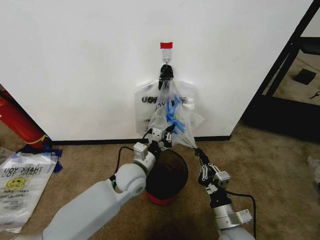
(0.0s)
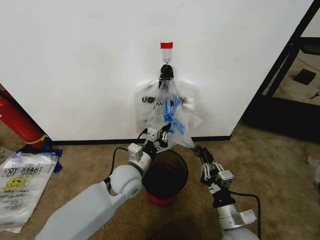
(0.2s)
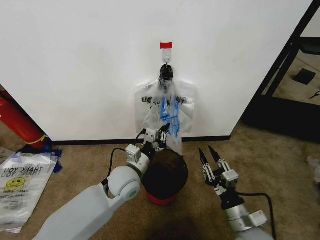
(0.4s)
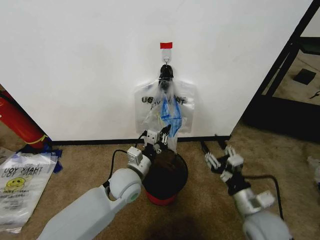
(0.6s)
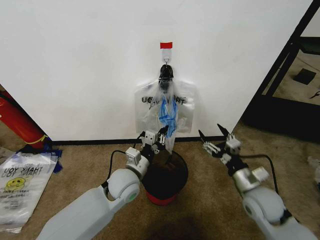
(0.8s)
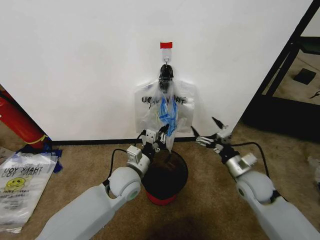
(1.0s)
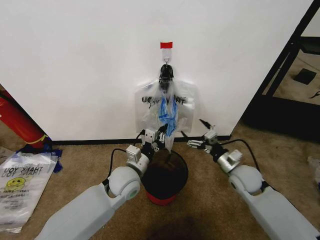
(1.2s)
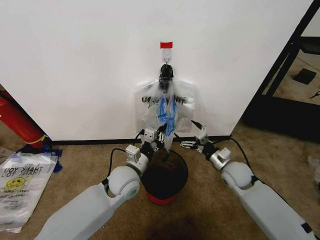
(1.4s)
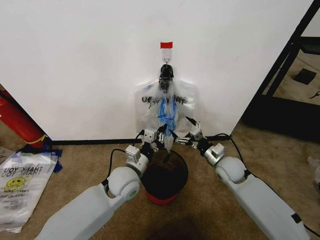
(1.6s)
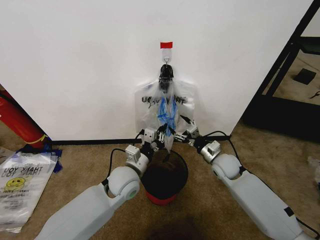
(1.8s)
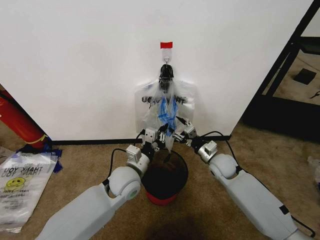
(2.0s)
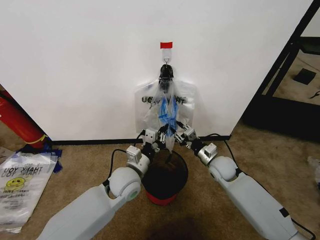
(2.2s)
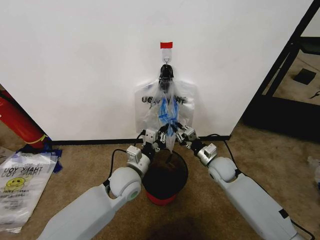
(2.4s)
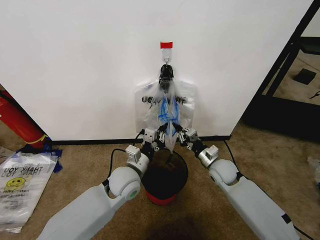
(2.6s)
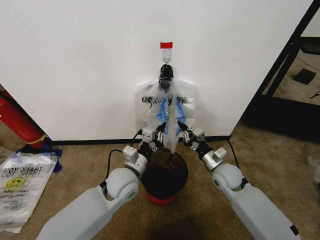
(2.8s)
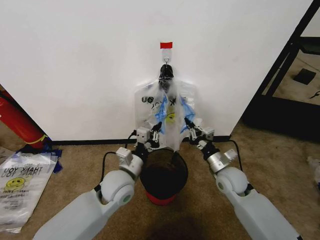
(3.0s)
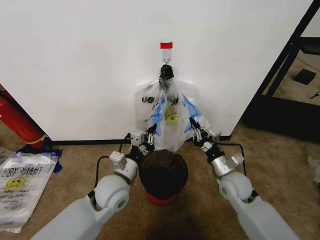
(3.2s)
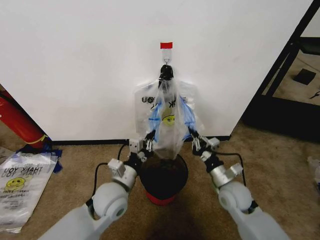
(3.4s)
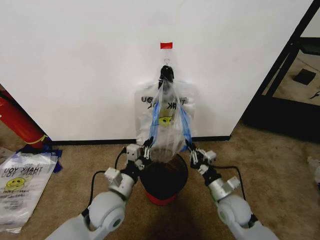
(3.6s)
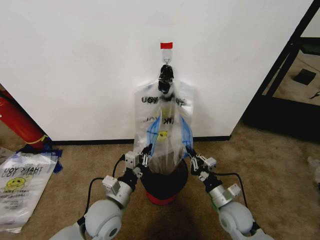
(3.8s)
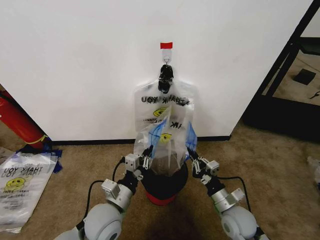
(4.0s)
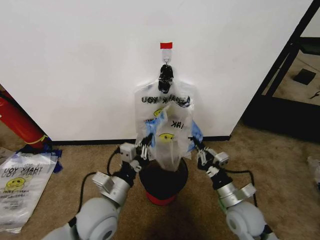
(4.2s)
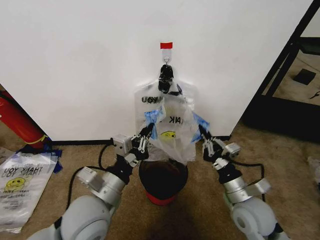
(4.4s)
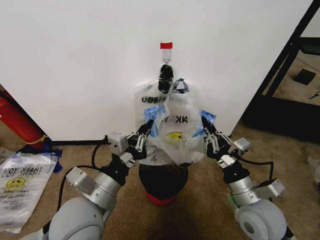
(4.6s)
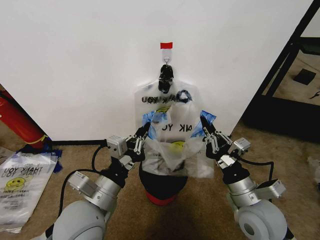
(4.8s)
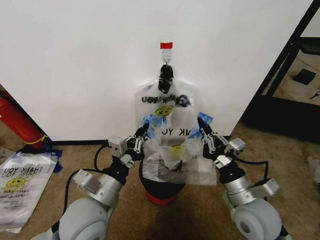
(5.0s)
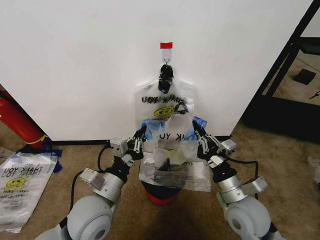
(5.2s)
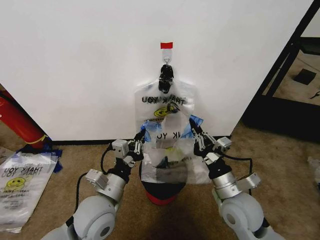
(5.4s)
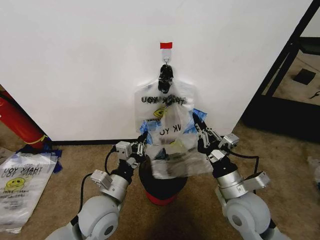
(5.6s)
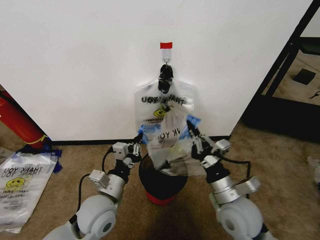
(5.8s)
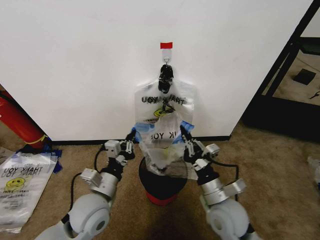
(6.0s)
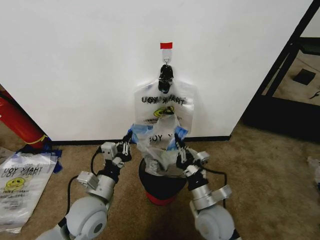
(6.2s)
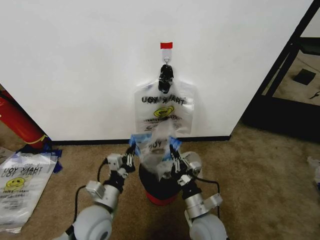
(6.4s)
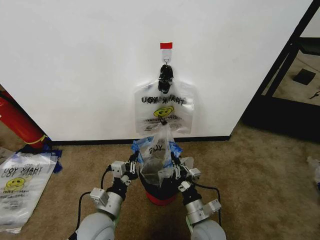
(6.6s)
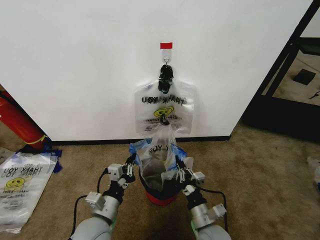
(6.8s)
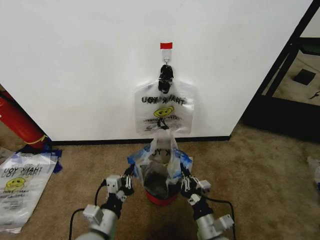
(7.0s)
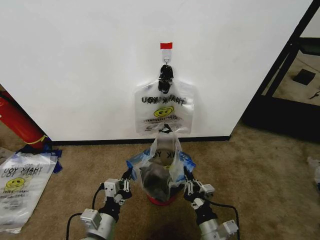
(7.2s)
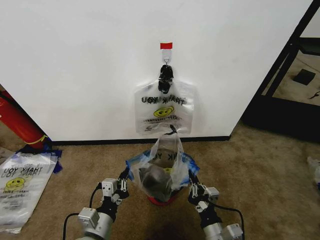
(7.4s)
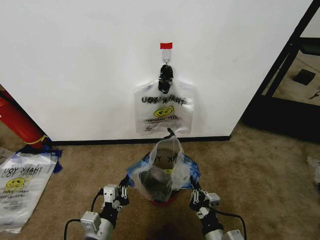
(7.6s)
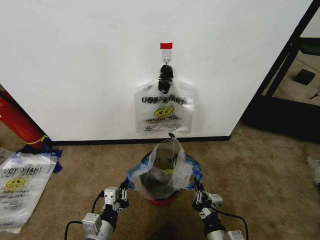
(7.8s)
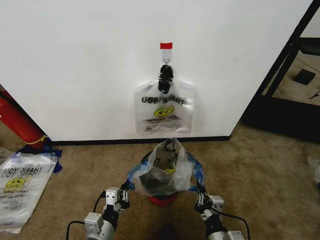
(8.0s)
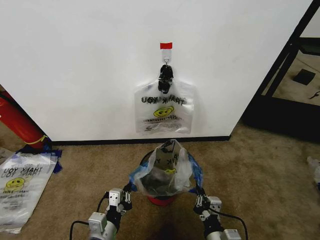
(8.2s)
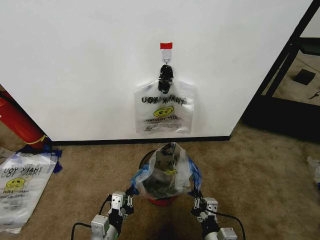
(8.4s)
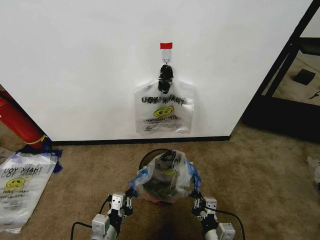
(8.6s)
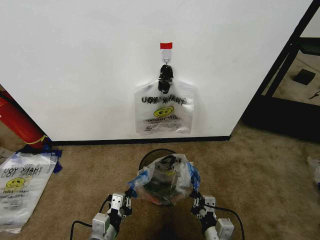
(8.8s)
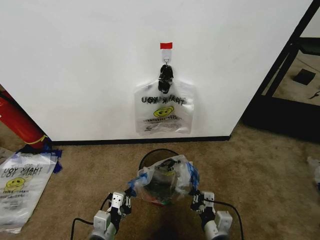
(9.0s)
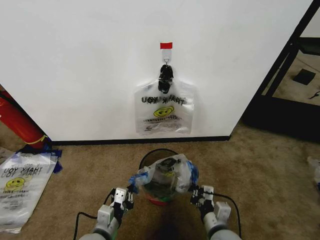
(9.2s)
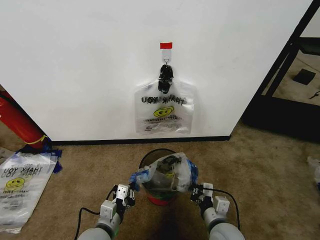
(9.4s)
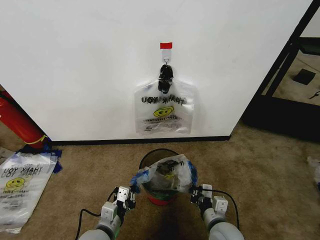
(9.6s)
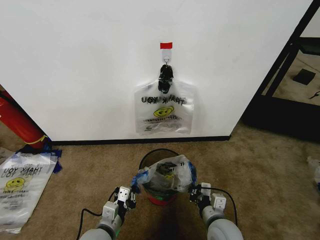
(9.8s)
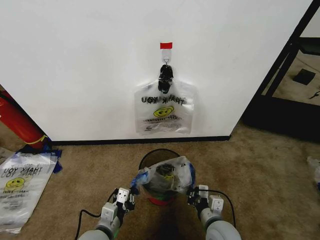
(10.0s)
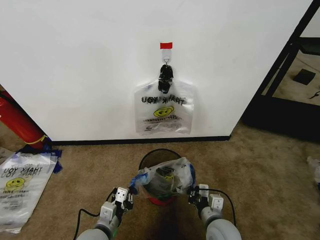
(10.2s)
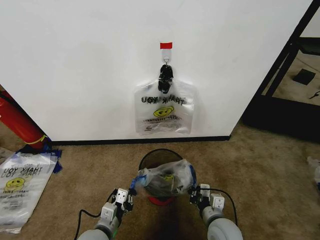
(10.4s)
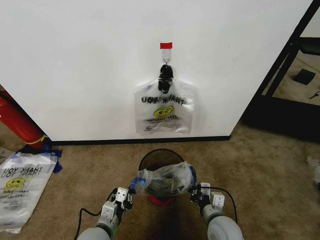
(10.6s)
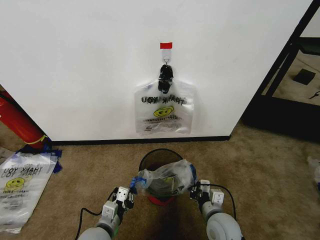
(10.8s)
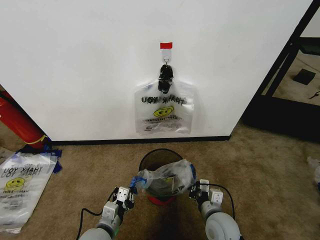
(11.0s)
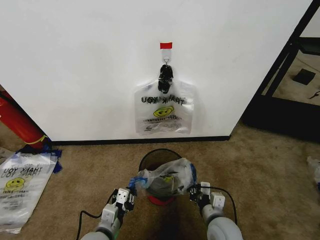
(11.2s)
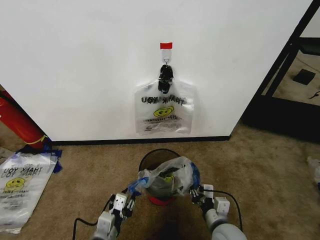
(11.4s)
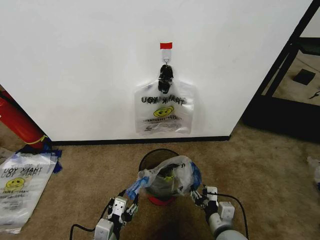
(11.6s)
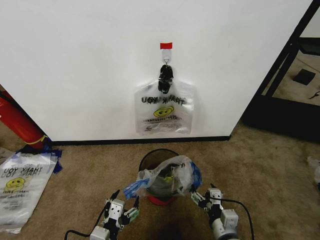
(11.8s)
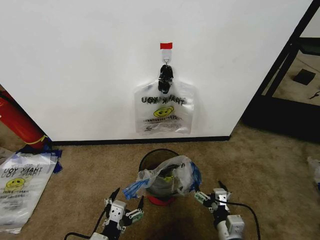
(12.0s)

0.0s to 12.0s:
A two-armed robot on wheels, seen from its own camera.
Task of the whole recording: Pick up the garbage bag from the wall and place it over the trash bin.
0.0s to 1.6s: The right gripper goes about 20 cm forward, and opens up.
1.6s to 3.0s: The right gripper closes up.
3.0s to 4.4s: The grippers both shift backward and upward by some 15 cm.
4.4s to 6.0s: The right gripper goes about 5 cm to the left. The left gripper moves downward, some 5 cm.
6.0s to 7.6s: Both grippers move backward and downward, approximately 15 cm.
9.0s to 10.4s: The right gripper shifts about 5 cm forward.
10.4s to 12.0s: The right gripper heads backward, covering approximately 5 cm, and opens its fingers, while the left gripper heads backward and upward, covering about 10 cm, and opens its fingers.

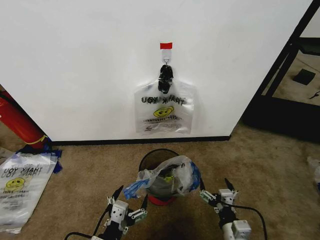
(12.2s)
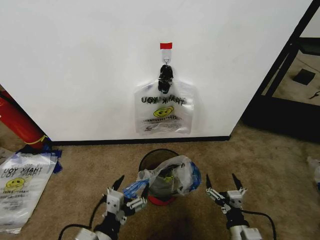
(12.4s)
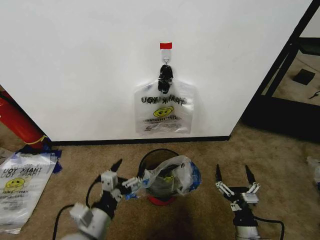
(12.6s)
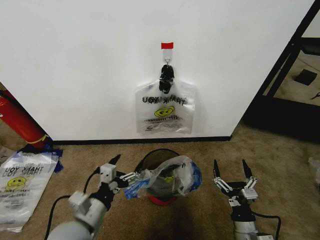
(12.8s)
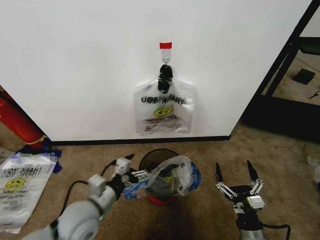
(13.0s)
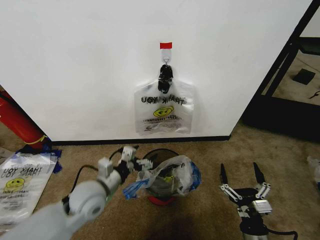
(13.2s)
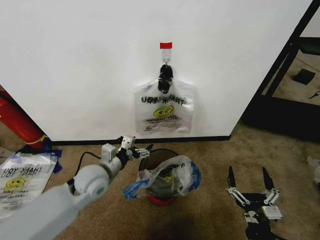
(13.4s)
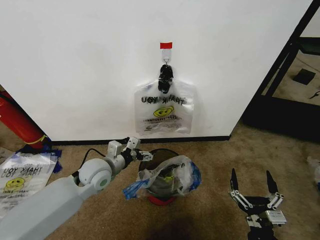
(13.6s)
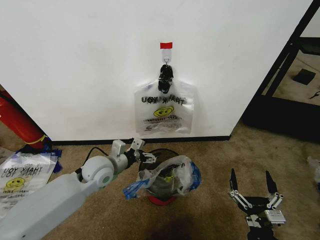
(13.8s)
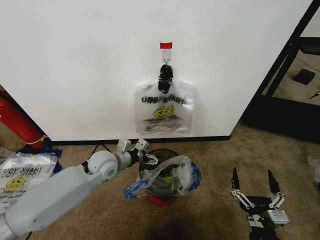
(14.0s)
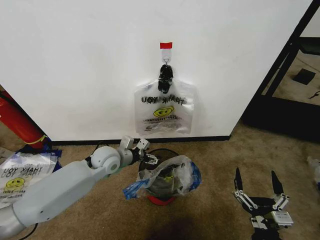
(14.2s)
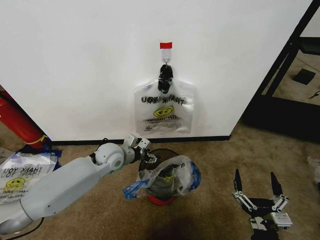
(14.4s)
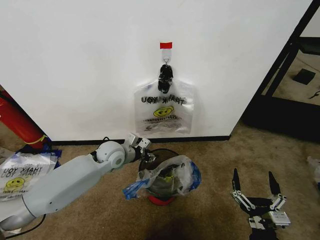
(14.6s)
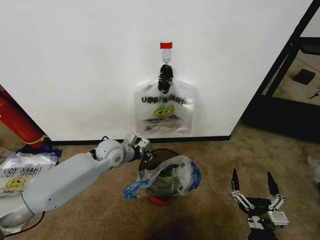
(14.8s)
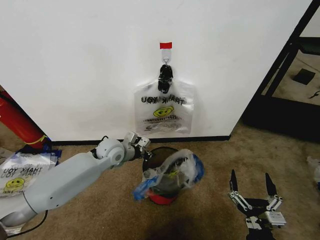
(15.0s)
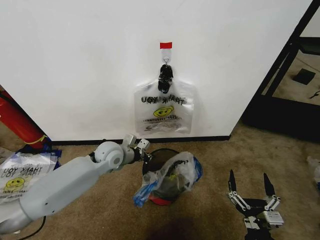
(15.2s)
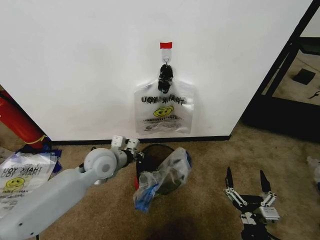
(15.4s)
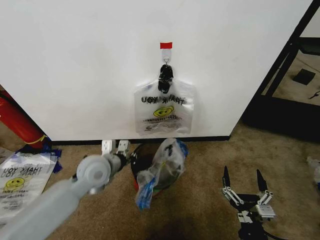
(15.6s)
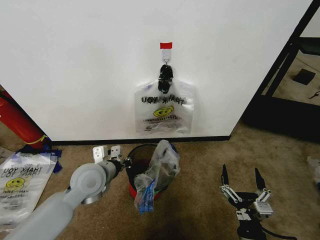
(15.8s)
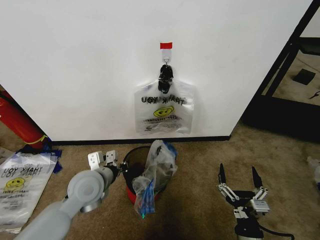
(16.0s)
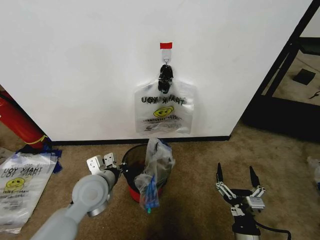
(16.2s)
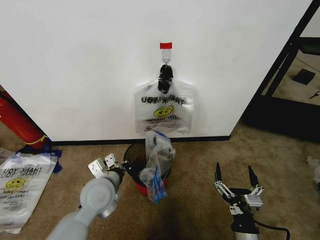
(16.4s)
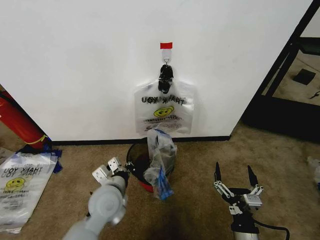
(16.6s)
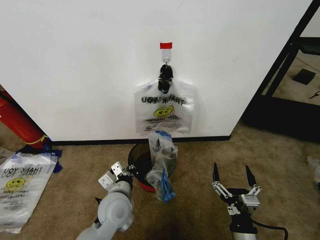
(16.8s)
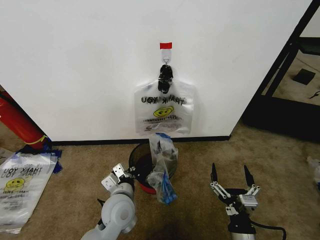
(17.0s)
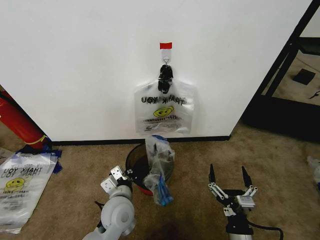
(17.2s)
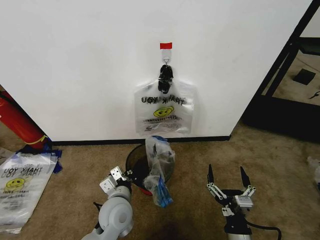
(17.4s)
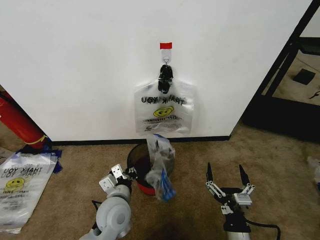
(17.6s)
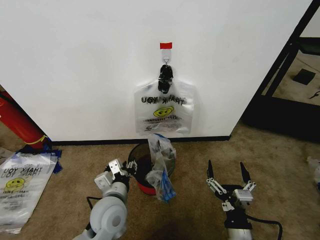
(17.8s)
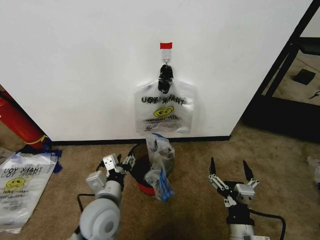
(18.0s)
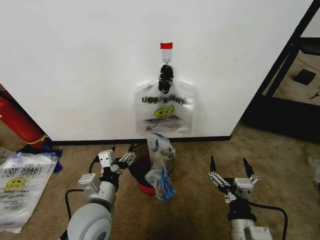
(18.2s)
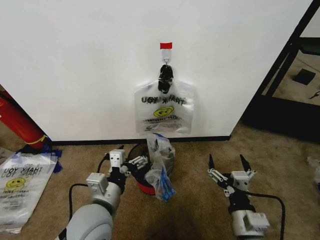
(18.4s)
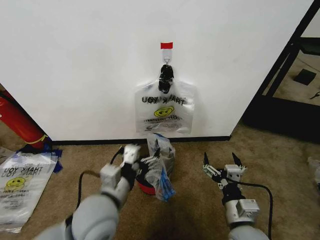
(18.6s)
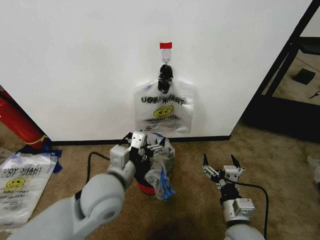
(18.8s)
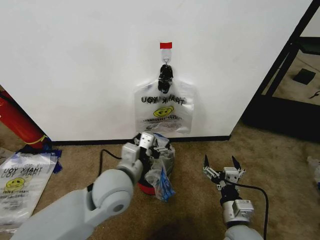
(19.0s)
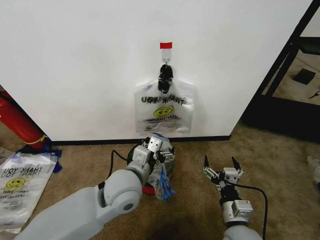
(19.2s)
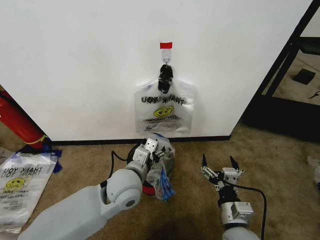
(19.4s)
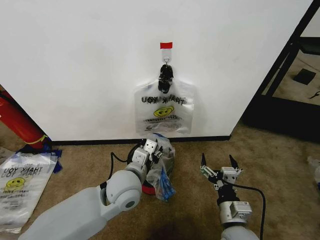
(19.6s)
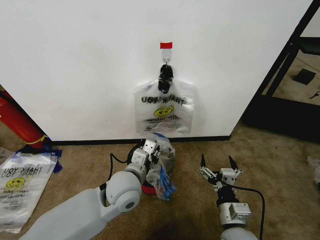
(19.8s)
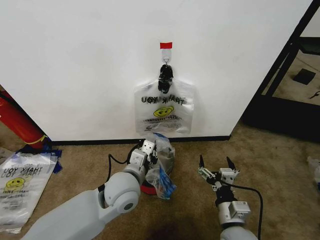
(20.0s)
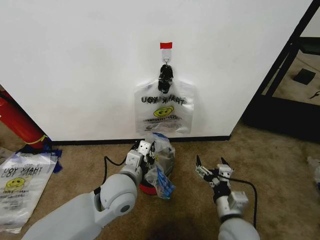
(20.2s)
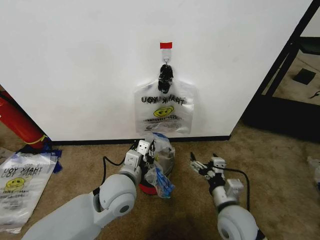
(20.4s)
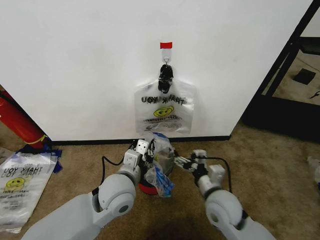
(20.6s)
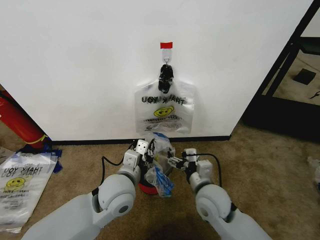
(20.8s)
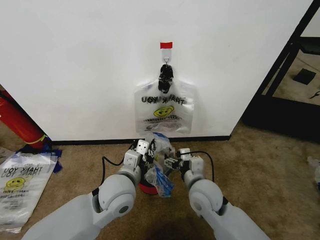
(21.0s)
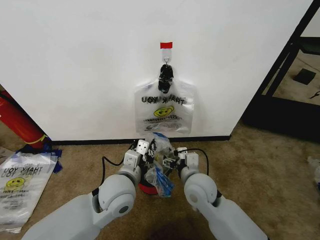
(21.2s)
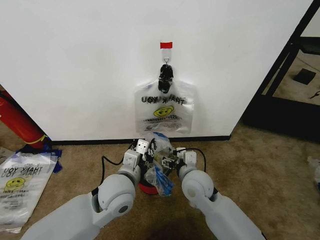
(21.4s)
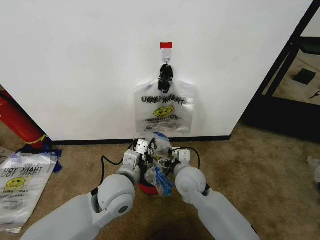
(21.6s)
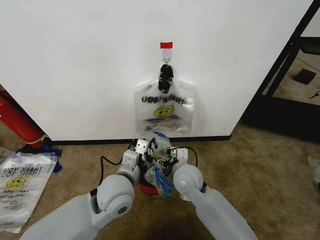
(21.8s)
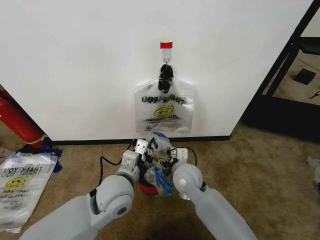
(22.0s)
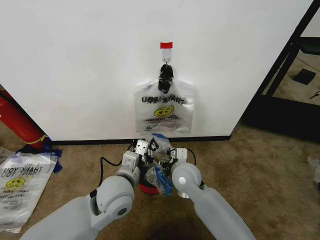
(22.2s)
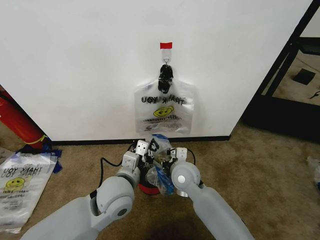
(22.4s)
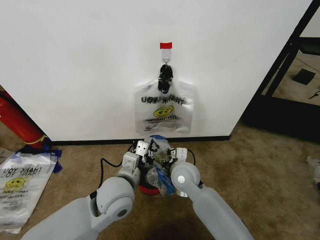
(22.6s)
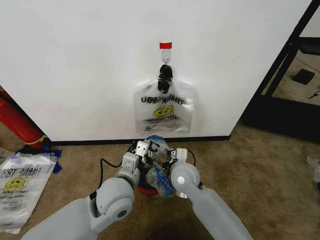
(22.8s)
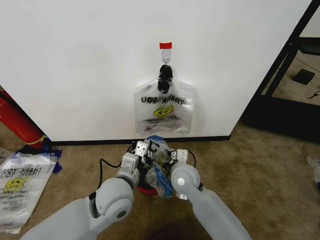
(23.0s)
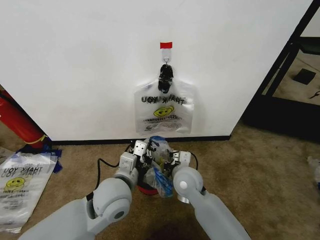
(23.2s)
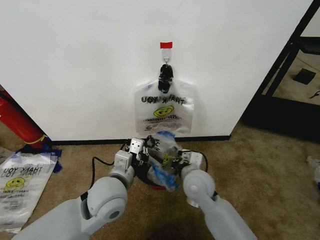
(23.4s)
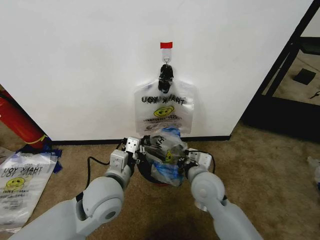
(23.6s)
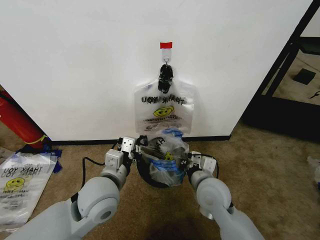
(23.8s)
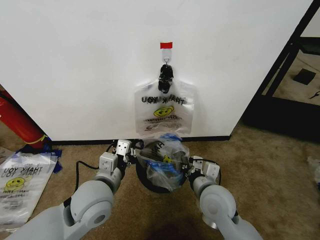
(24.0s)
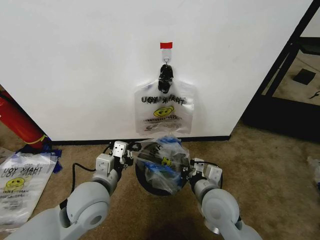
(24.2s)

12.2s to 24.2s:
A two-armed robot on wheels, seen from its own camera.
Task of the whole recording: Pick up the garbage bag from the wall and place it over the trash bin.
12.2s to 13.8s: The left gripper is displaced forward by about 30 cm. Meanwhile the right gripper ends up approximately 5 cm from where it was.
13.8s to 15.2s: The left gripper travels forward by some 5 cm, and closes its fingers.
15.2s to 16.6s: The left gripper moves backward, some 15 cm.
16.6s to 18.2s: The right gripper goes about 5 cm upward; the left gripper heads backward, covering about 5 cm, and opens its fingers.
18.2s to 19.8s: The left gripper is displaced forward and to the right by about 10 cm, and closes its fingers. Meanwhile the right gripper changes place by roughly 5 cm.
19.8s to 21.2s: The right gripper heads forward and to the left, covering roughly 15 cm.
21.2s to 22.6s: The right gripper changes place by some 5 cm, and closes its fingers.
22.6s to 24.2s: The left gripper moves to the left, roughly 5 cm. Meanwhile the right gripper travels backward and to the right by some 15 cm.
